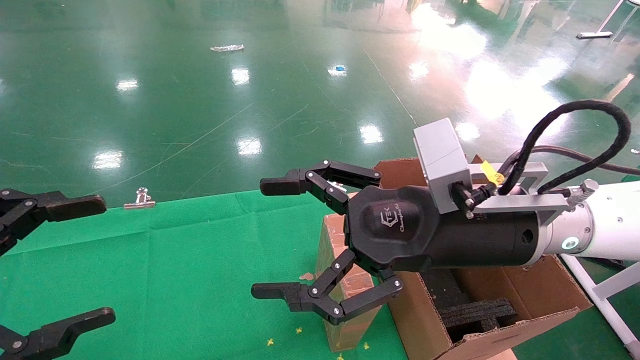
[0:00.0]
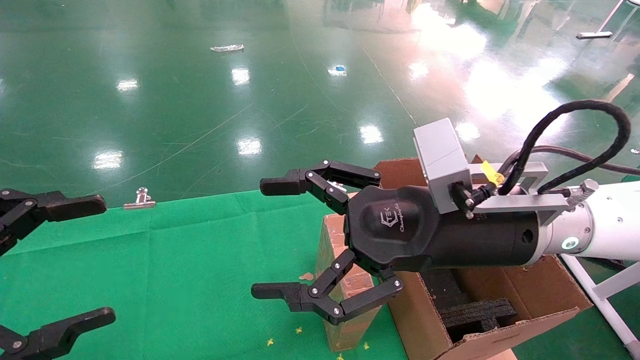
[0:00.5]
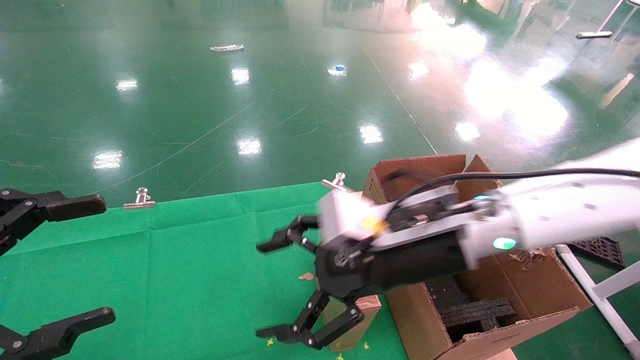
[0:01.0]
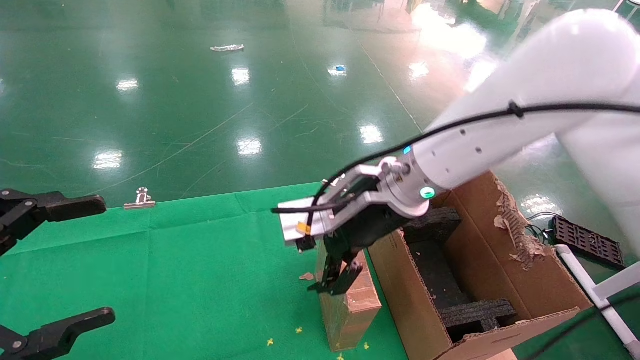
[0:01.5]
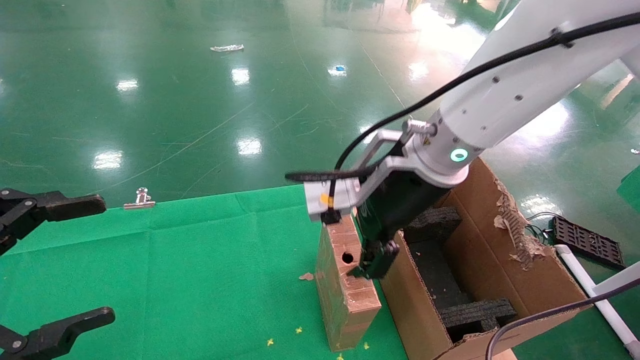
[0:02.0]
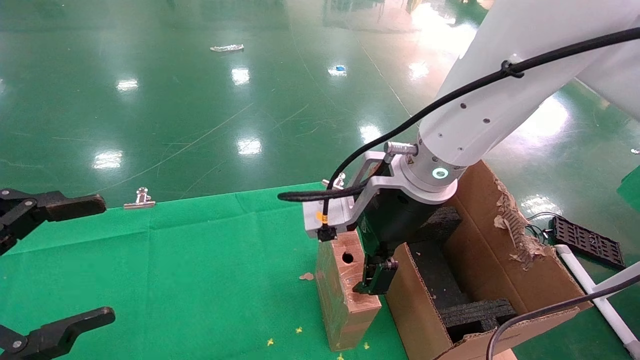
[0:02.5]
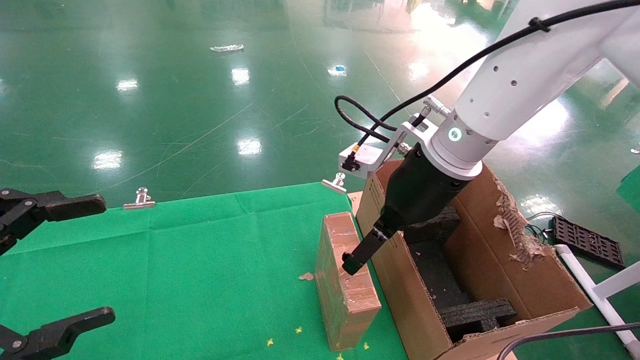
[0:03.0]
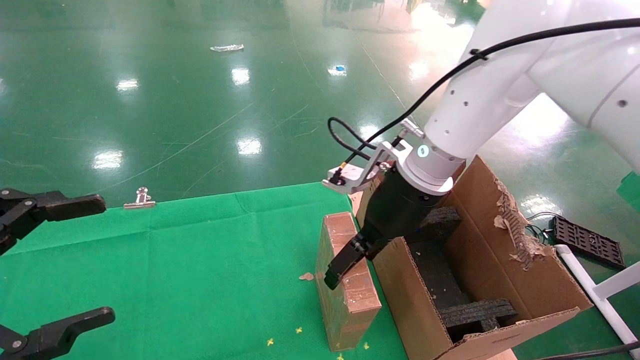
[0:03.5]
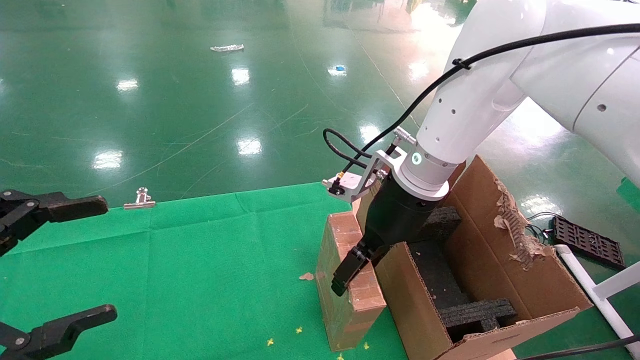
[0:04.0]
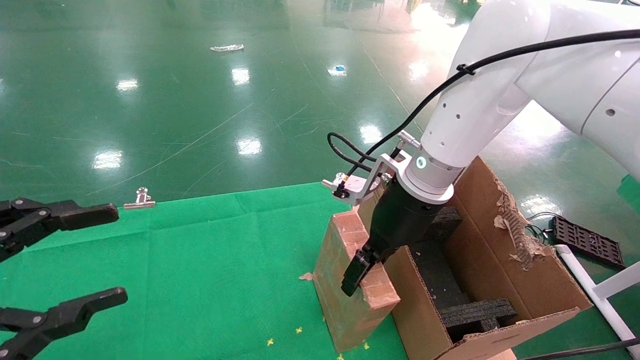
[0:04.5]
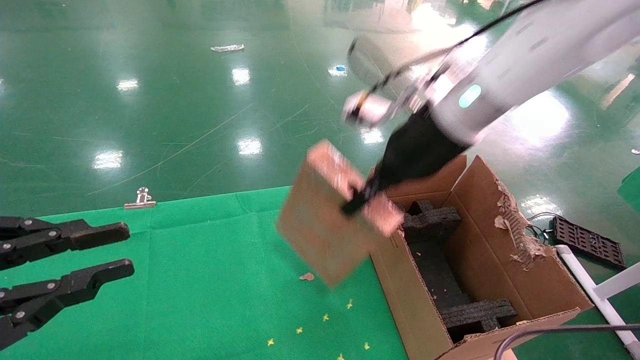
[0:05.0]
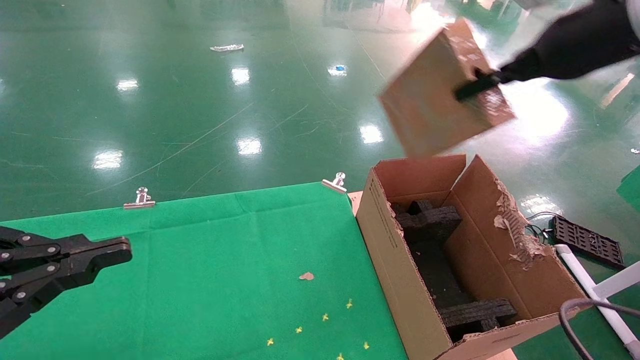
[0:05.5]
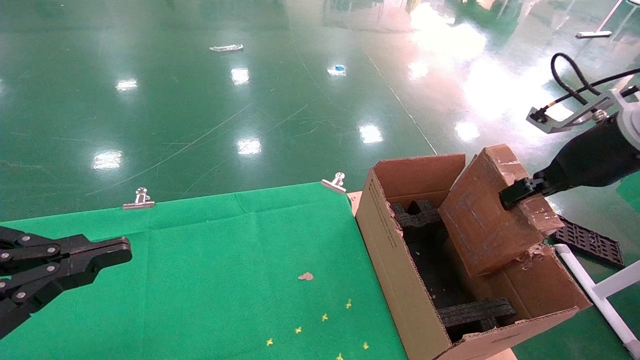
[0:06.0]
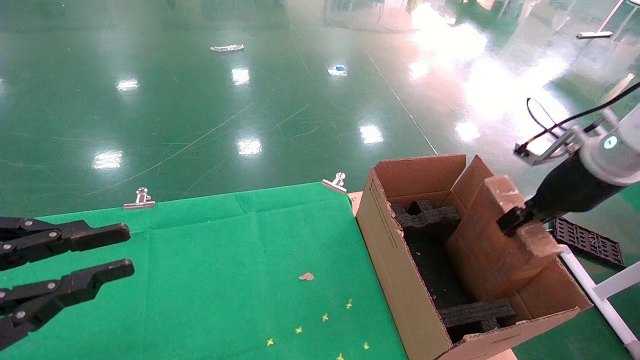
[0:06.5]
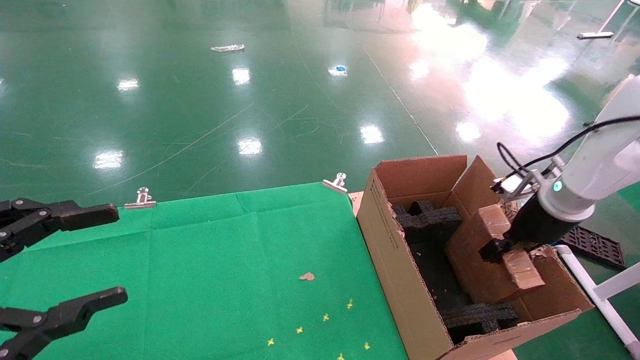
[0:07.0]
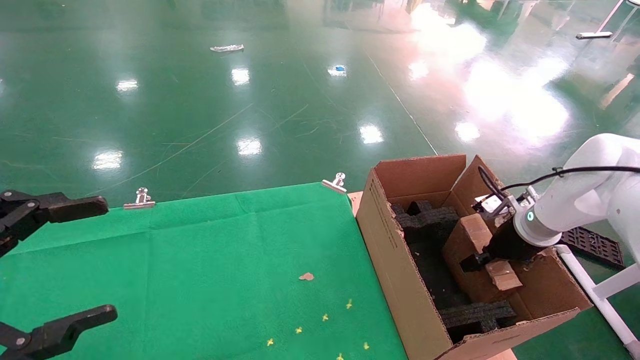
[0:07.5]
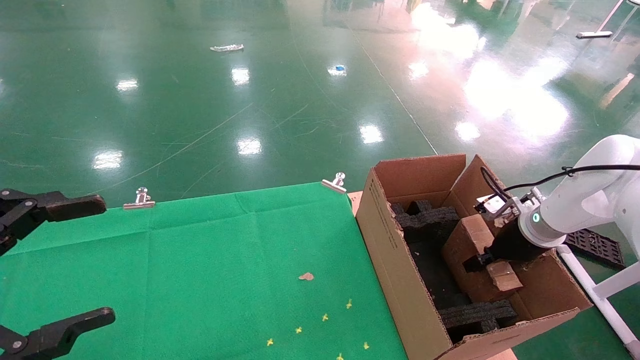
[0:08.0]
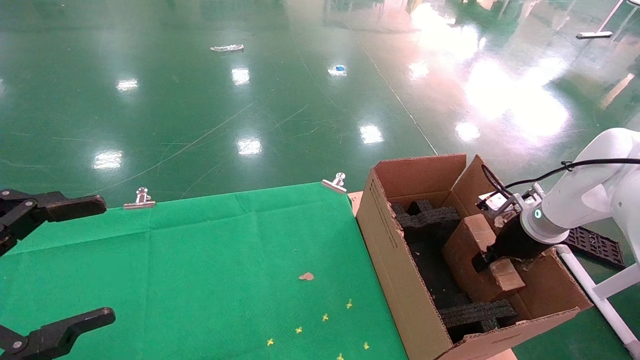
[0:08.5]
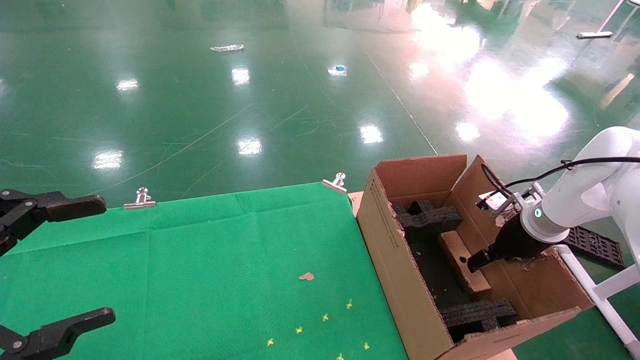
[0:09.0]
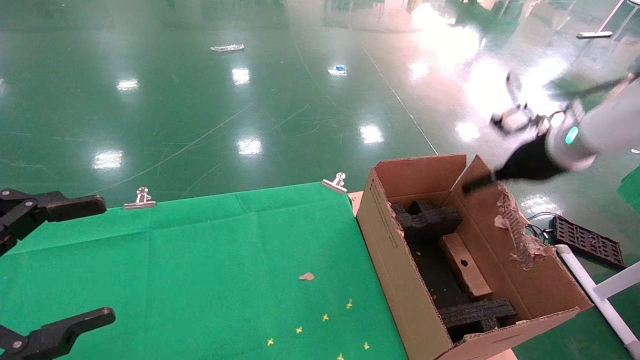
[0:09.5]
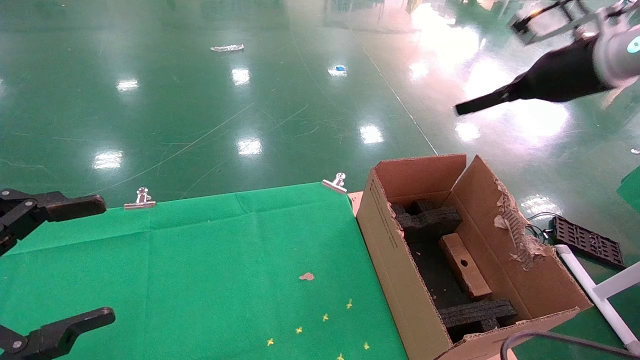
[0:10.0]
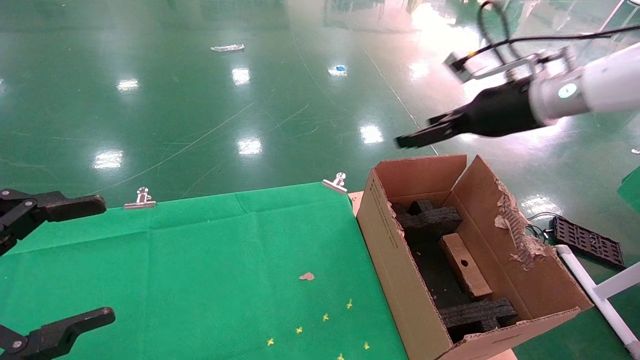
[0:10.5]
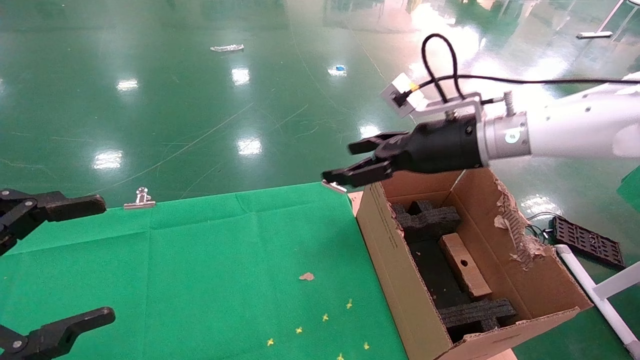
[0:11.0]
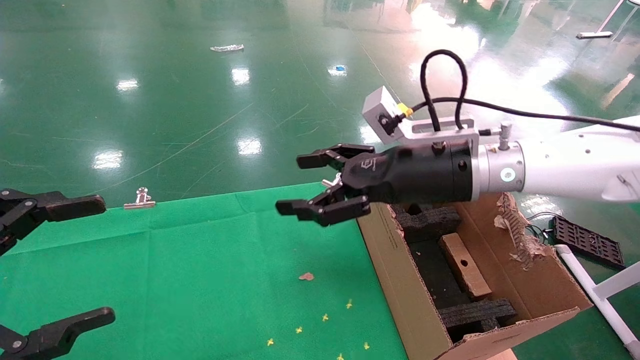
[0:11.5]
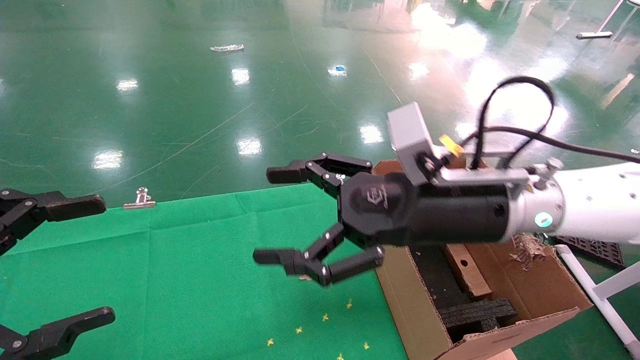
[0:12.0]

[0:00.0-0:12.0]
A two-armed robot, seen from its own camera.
Task of the whole recording: using a robotic arm to pick up a cardboard box and palace it the carton.
Step, 0:01.0 to 0:04.5: Pick up the mouse and the power cord paper box.
Step, 0:05.0 to 0:09.0: Place the mouse and the power cord paper box into the container.
0:00.0 to 0:02.0: The right gripper travels forward and to the left by approximately 10 cm.
0:02.0 to 0:04.0: The right gripper shifts about 5 cm forward.
0:04.0 to 0:06.0: The right gripper goes approximately 25 cm to the right, and closes its fingers; the left gripper closes up.
0:06.0 to 0:08.0: The right gripper goes about 20 cm downward and forward. The left gripper opens up.
0:08.0 to 0:10.0: The right gripper goes approximately 25 cm upward, and opens up.
0:10.0 to 0:12.0: The right gripper is displaced to the left, downward and backward by about 25 cm.

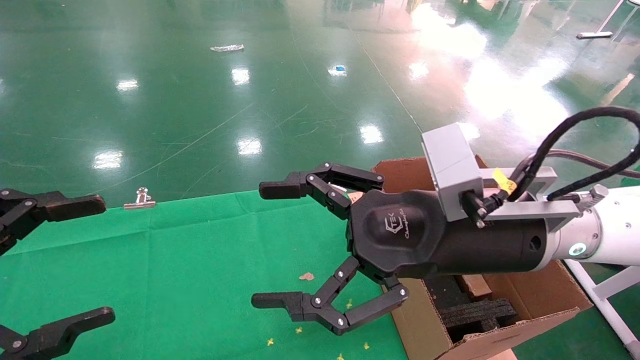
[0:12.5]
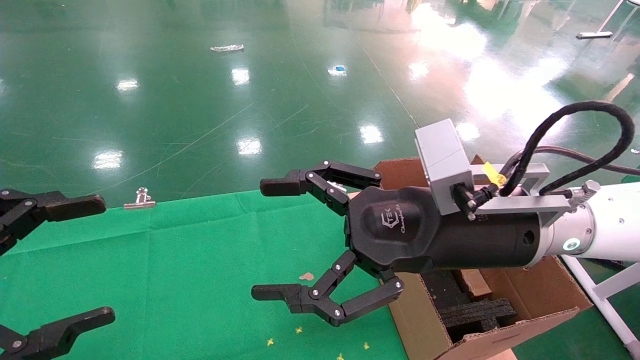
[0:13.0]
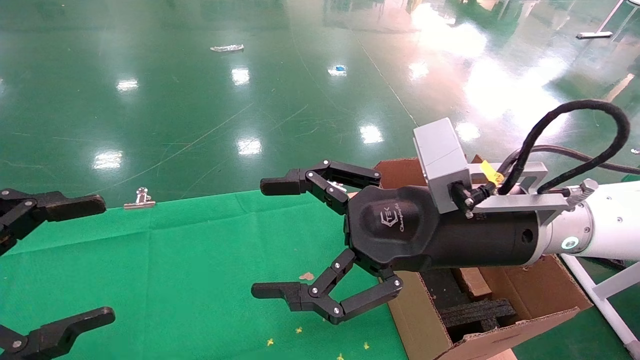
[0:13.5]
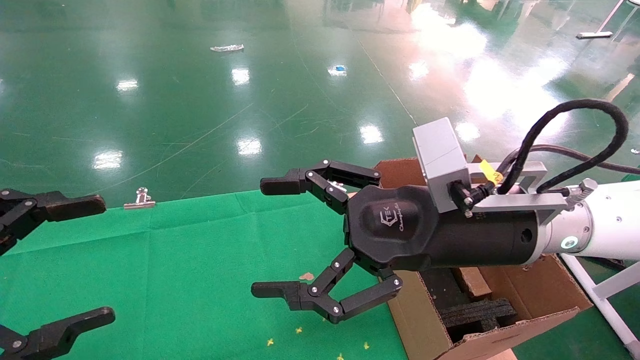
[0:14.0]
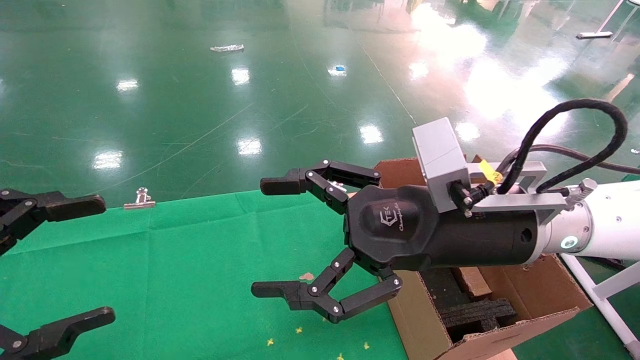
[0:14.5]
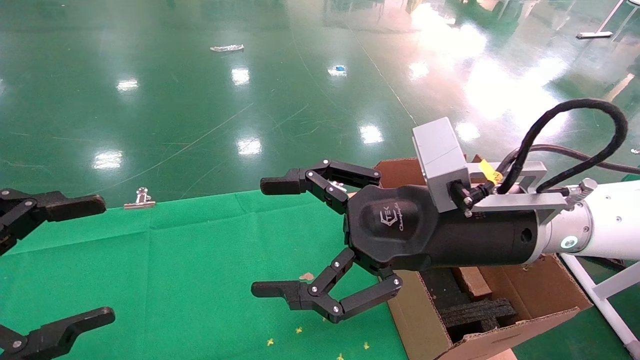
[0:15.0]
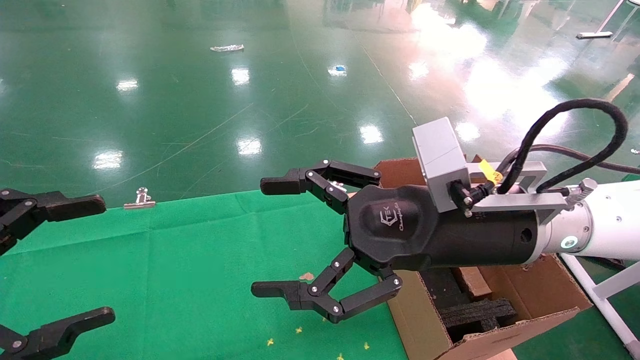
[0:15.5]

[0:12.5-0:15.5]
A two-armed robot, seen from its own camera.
Task of the whole recording: using a robotic arm to pick up a cardboard box and palace it the carton.
0:12.5 to 0:15.5: Both grippers stay put.
